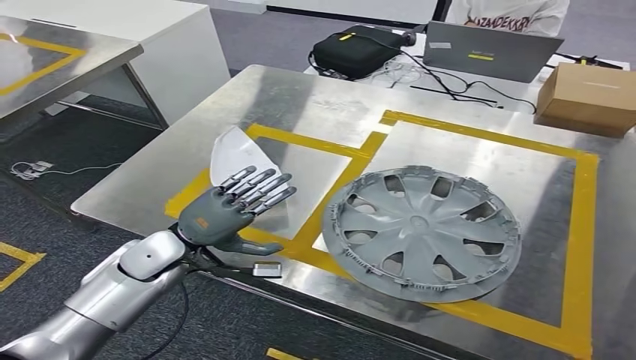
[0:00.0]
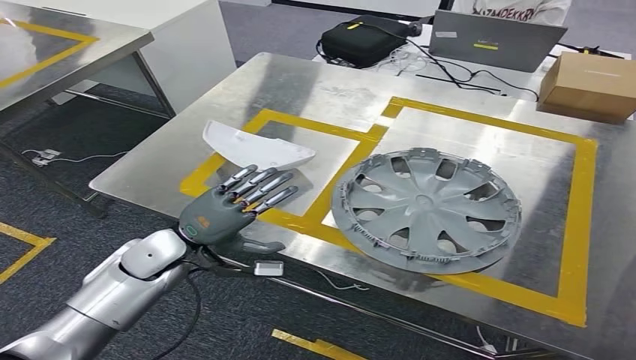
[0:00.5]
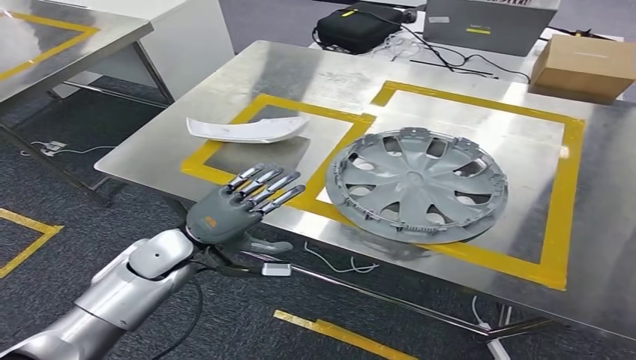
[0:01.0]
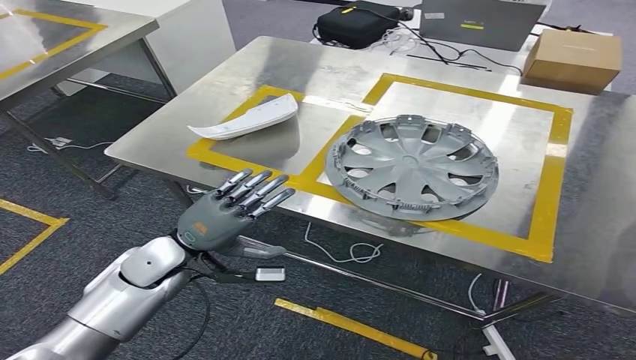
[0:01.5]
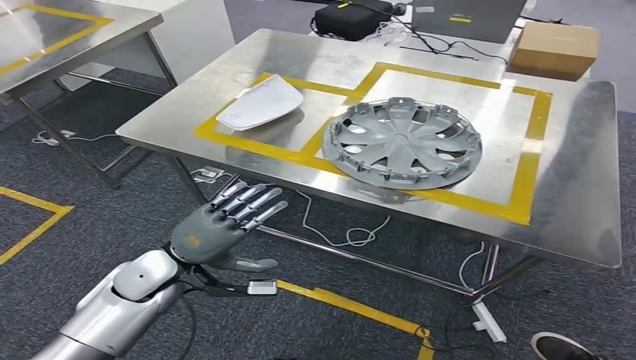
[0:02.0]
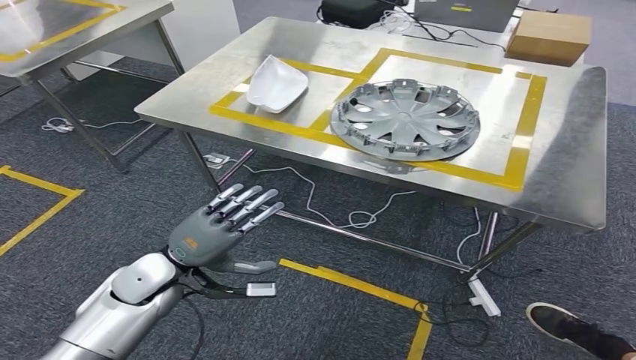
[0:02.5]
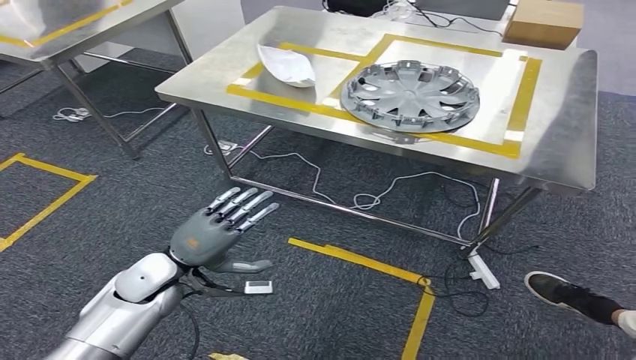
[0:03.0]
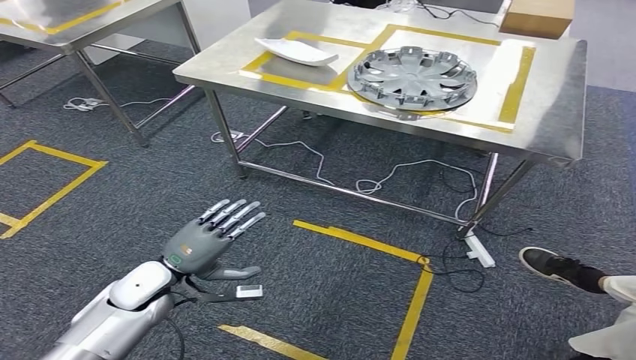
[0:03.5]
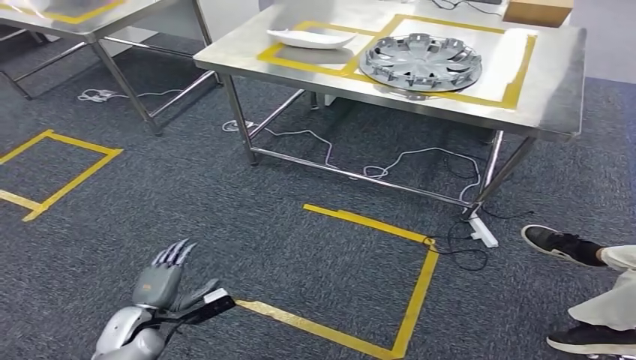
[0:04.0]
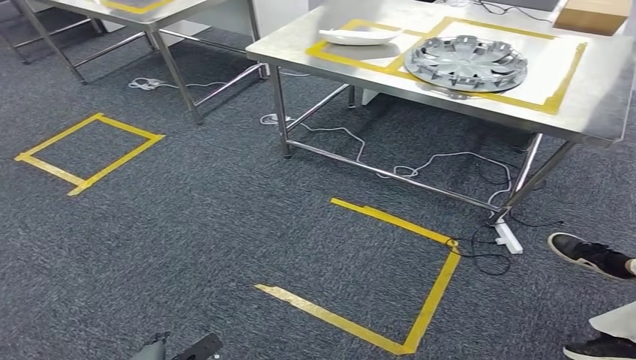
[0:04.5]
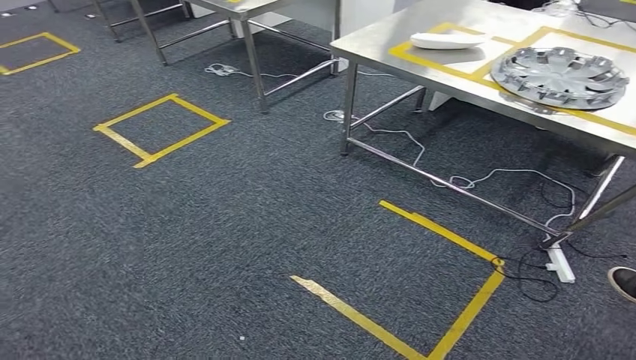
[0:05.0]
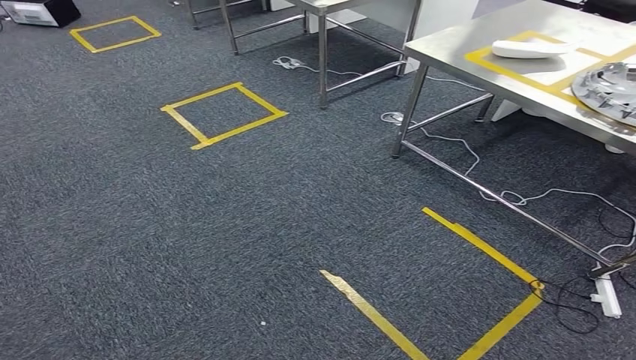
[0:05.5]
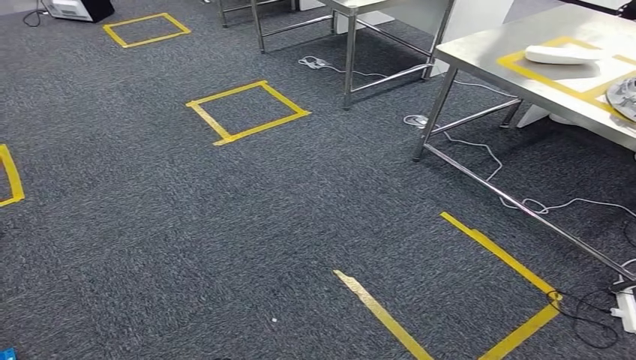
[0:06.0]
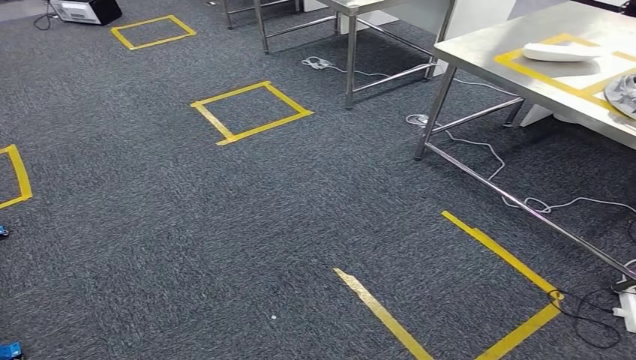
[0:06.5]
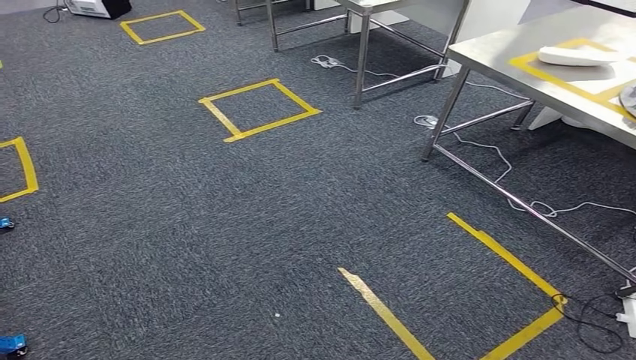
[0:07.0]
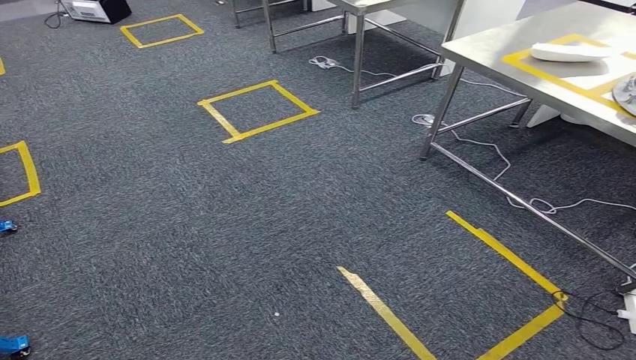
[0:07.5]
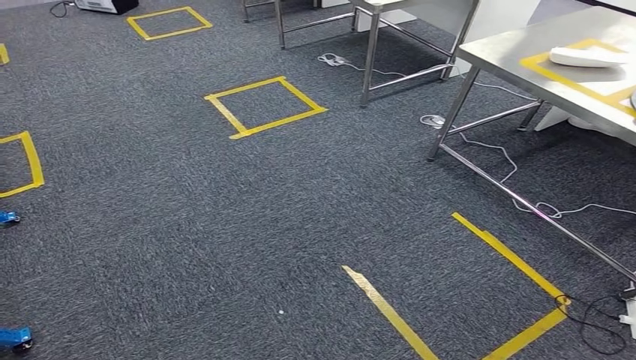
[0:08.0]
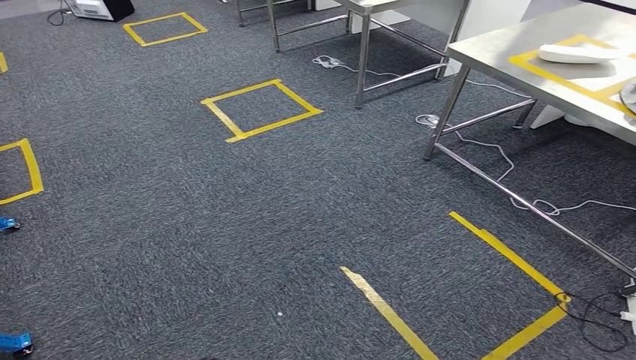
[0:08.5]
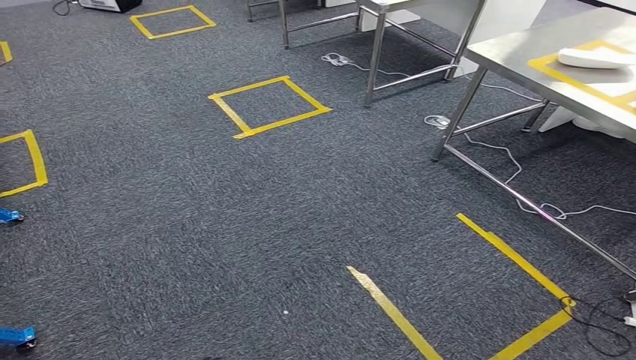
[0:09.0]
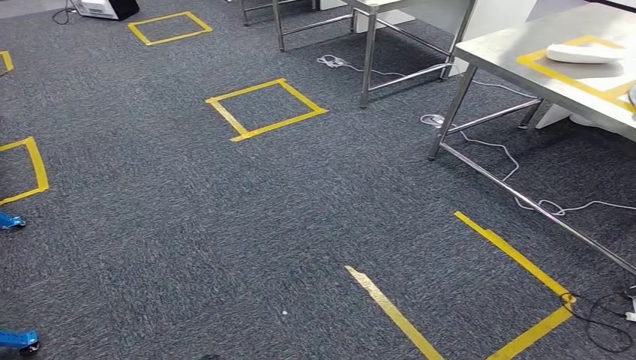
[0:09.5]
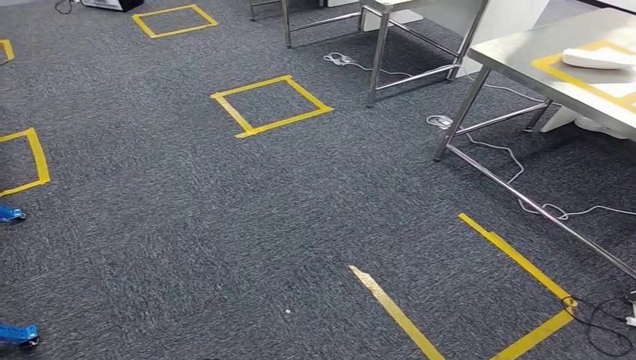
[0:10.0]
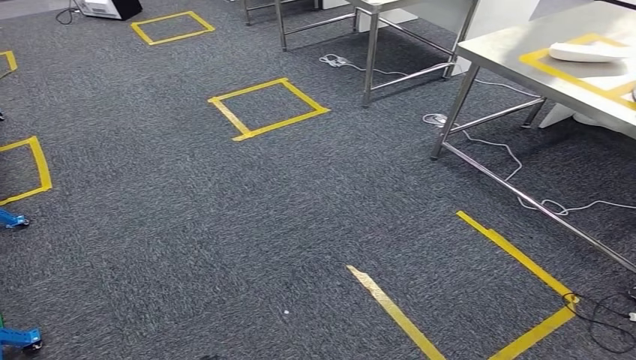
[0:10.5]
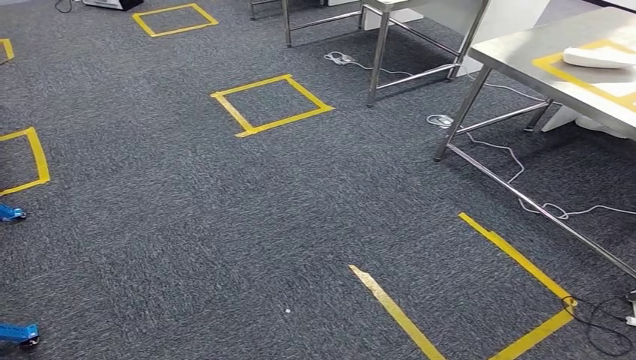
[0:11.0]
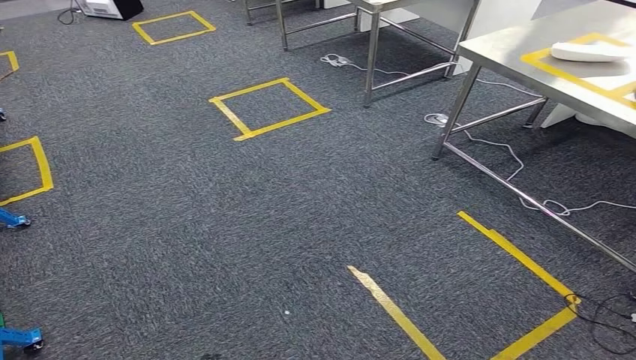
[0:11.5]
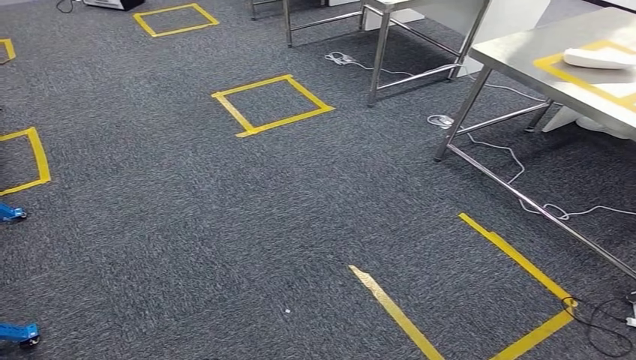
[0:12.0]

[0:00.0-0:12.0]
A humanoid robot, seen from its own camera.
Step, 0:00.0 to 0:02.0: Insert the small component into the corresponding slot on the workbench.
0:06.0 to 0:10.0: The hands stay close to where they were, moving slightly.
0:10.0 to 0:12.0: Both hands stay put.

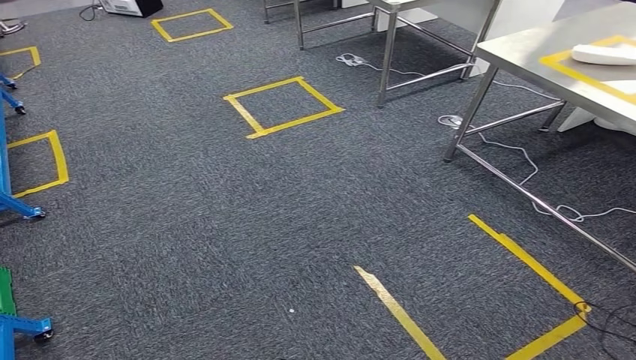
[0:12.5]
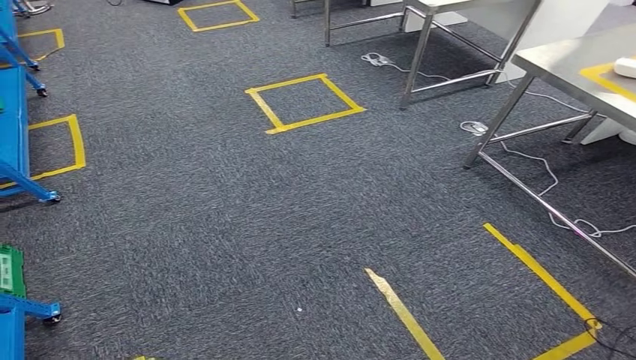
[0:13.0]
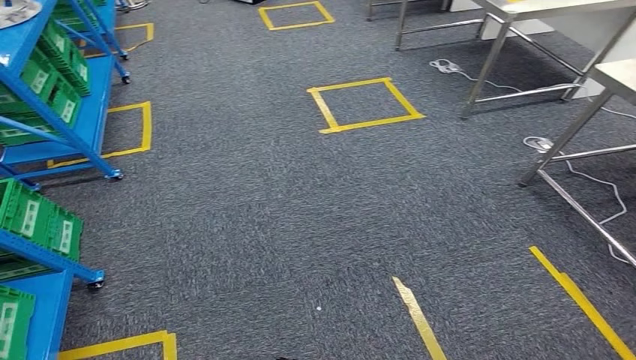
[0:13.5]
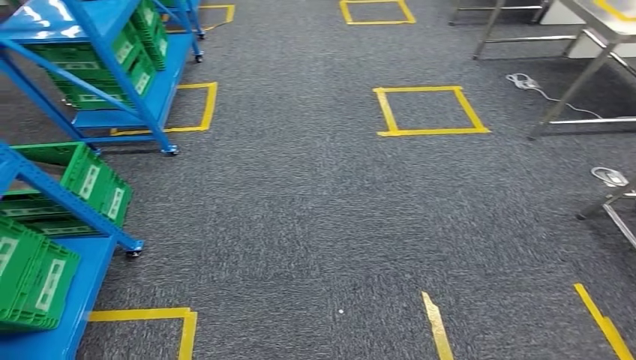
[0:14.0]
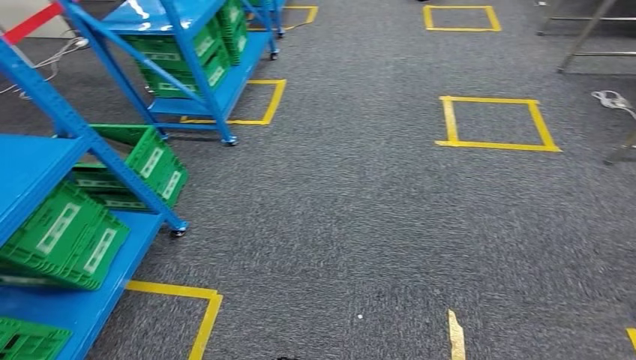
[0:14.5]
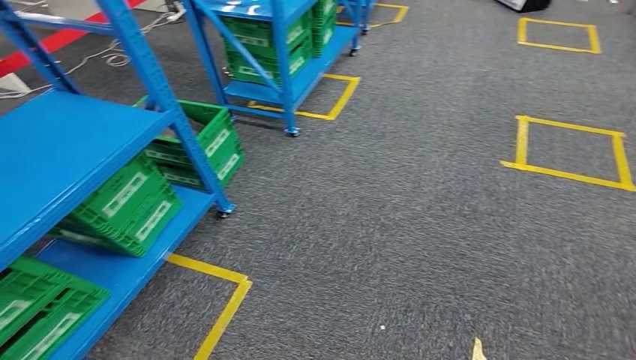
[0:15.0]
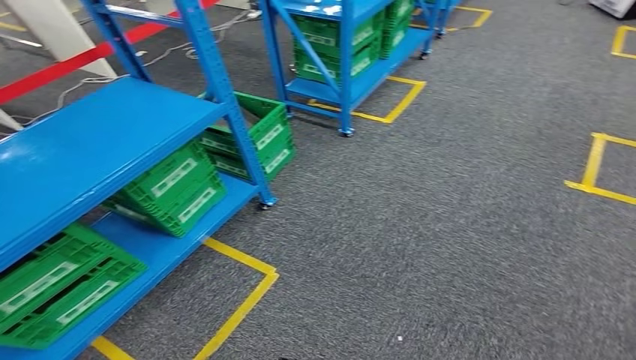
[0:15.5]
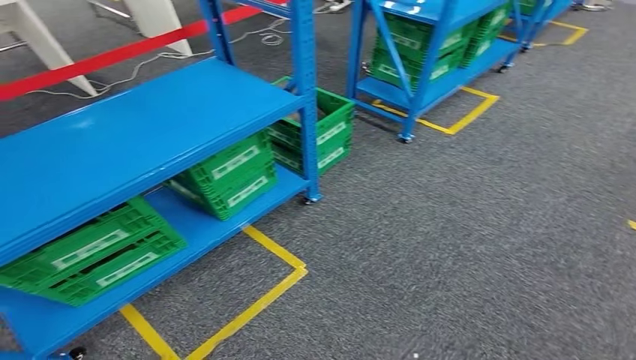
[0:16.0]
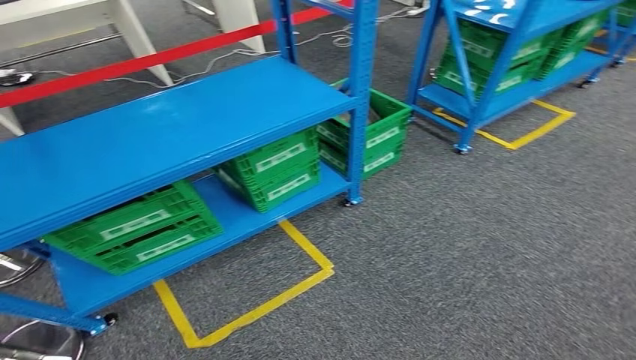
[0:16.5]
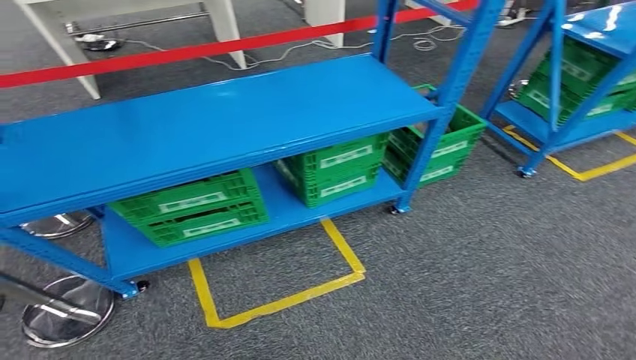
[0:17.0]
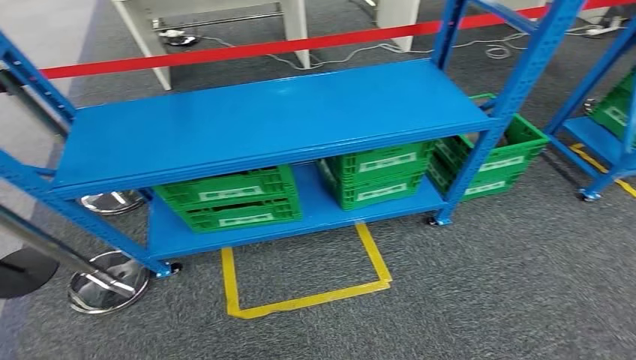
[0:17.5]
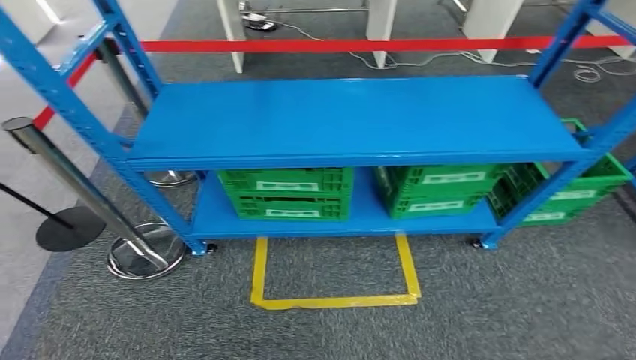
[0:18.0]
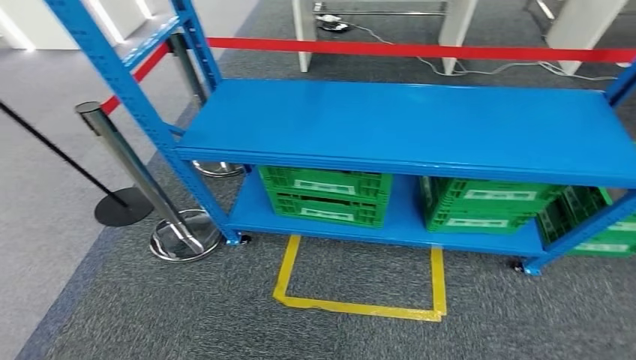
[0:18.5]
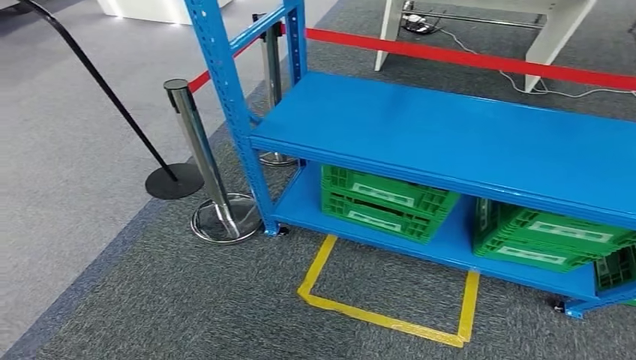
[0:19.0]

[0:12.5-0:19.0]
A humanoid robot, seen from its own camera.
Step, 0:12.5 to 0:19.0: Return to the initial position at the workbench.
